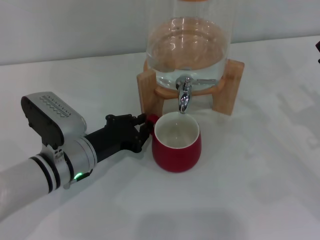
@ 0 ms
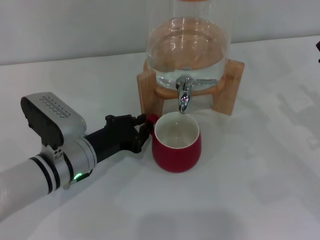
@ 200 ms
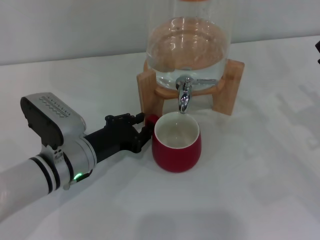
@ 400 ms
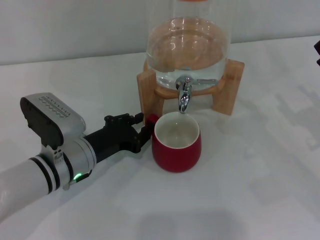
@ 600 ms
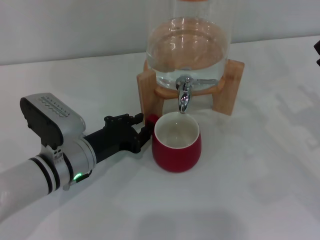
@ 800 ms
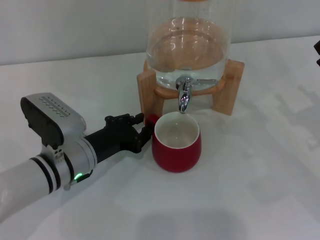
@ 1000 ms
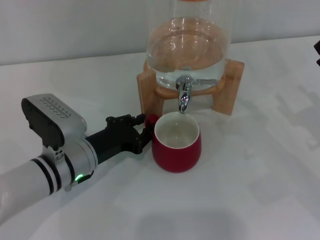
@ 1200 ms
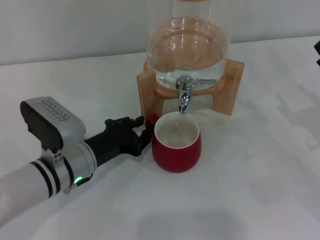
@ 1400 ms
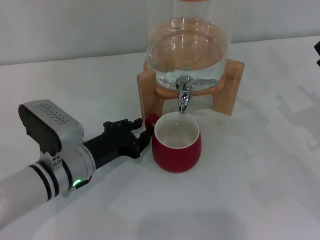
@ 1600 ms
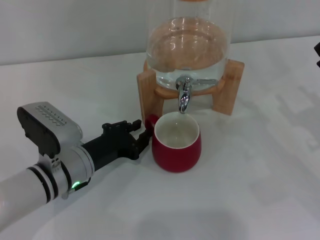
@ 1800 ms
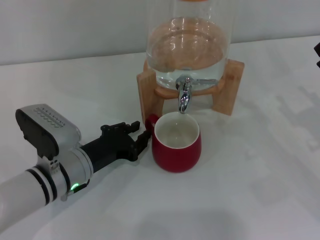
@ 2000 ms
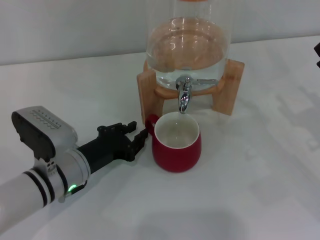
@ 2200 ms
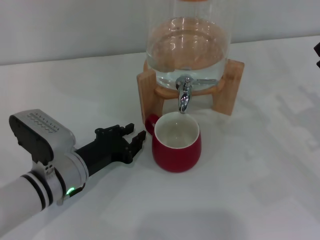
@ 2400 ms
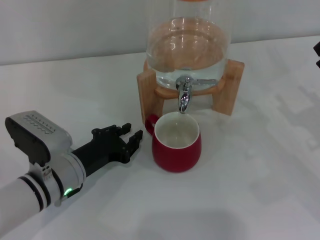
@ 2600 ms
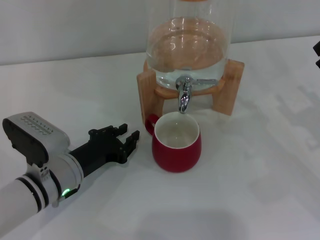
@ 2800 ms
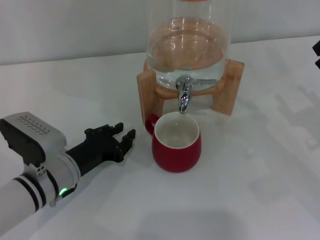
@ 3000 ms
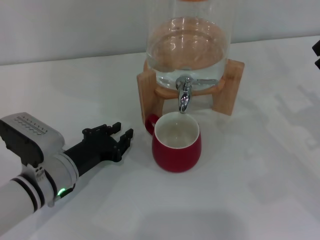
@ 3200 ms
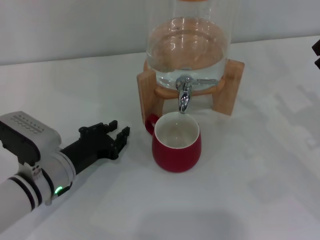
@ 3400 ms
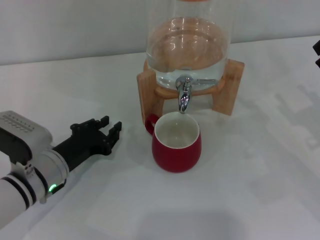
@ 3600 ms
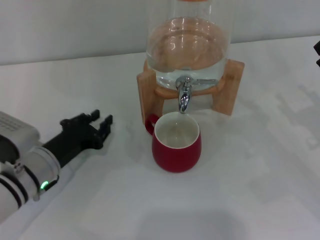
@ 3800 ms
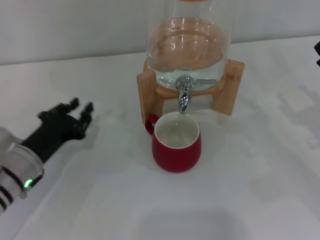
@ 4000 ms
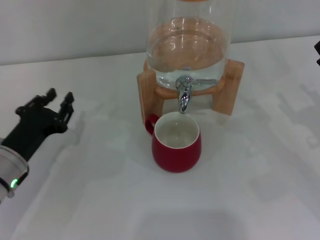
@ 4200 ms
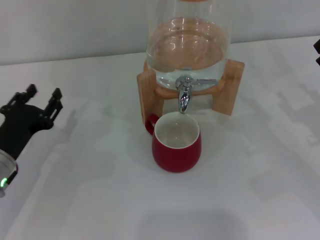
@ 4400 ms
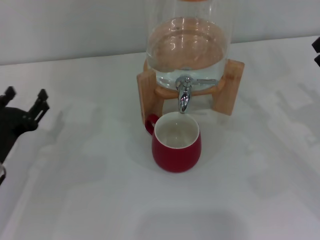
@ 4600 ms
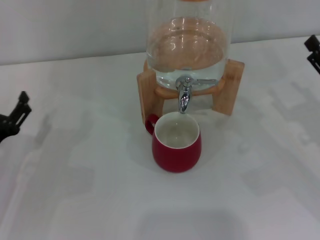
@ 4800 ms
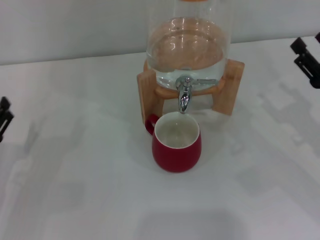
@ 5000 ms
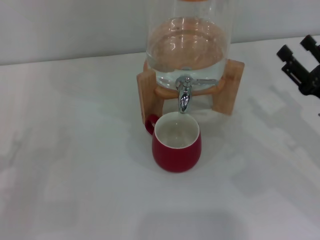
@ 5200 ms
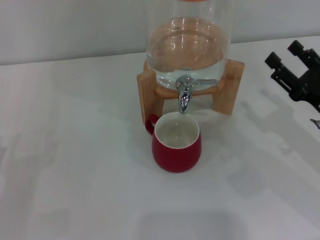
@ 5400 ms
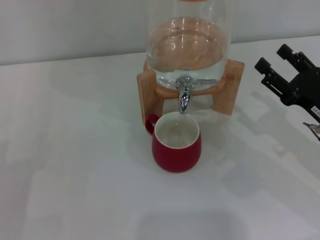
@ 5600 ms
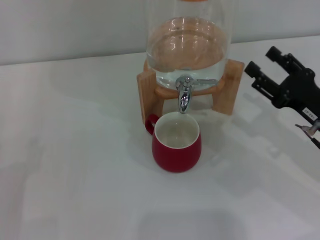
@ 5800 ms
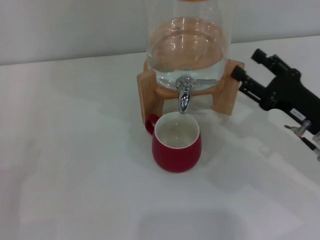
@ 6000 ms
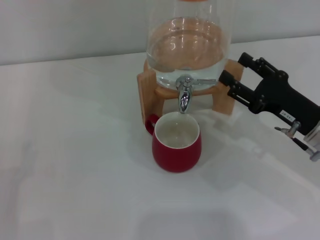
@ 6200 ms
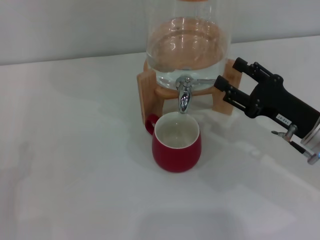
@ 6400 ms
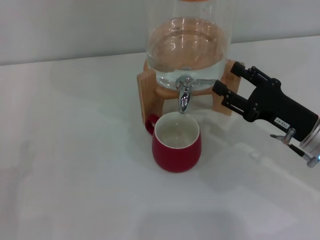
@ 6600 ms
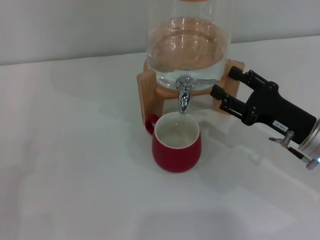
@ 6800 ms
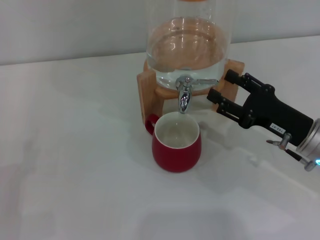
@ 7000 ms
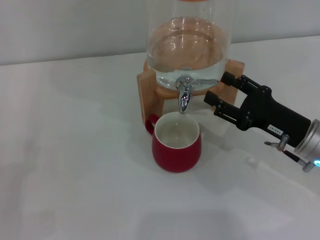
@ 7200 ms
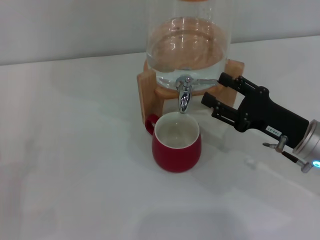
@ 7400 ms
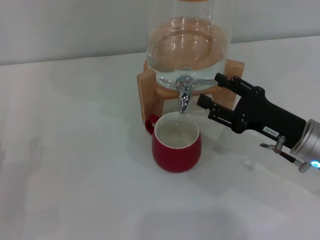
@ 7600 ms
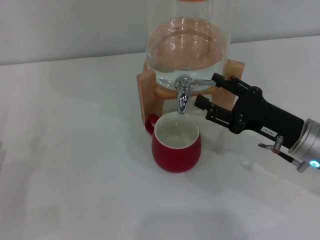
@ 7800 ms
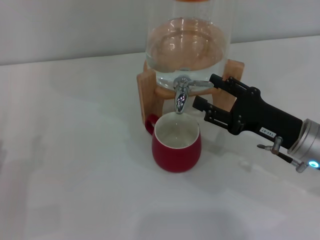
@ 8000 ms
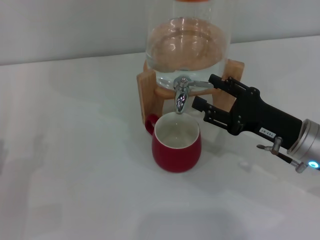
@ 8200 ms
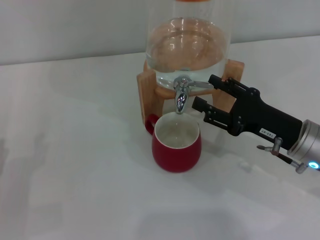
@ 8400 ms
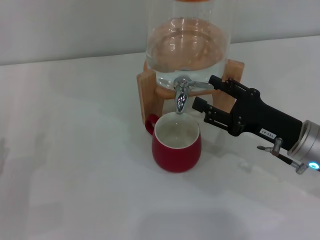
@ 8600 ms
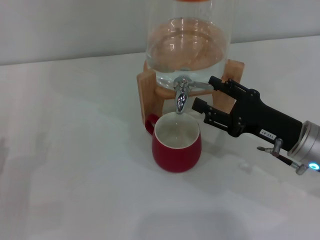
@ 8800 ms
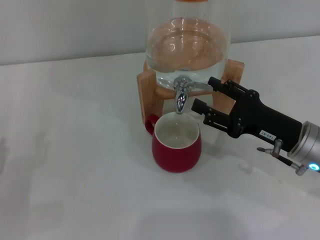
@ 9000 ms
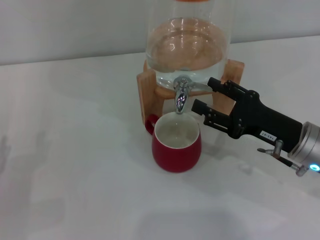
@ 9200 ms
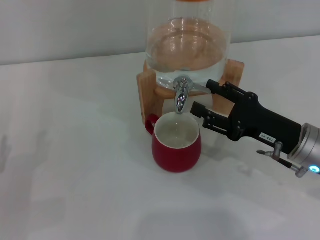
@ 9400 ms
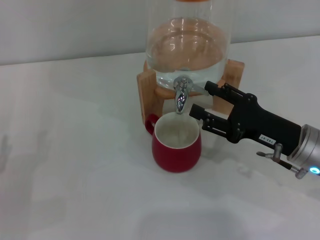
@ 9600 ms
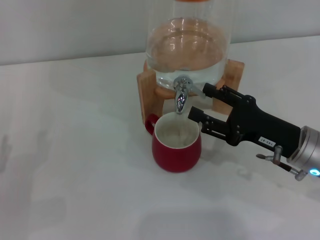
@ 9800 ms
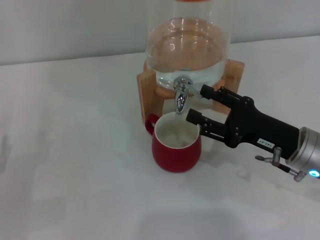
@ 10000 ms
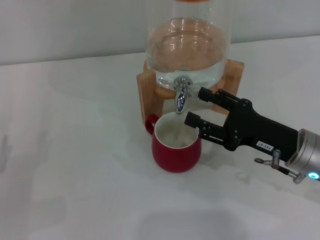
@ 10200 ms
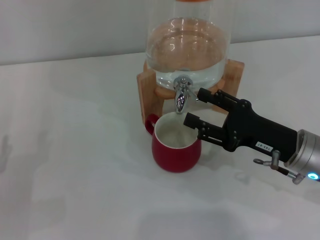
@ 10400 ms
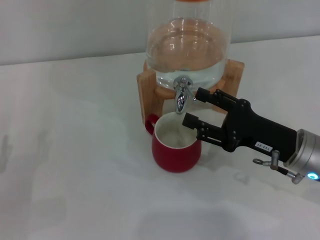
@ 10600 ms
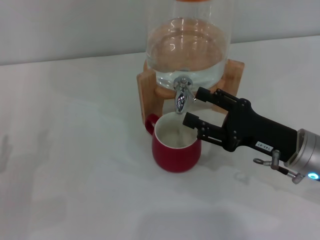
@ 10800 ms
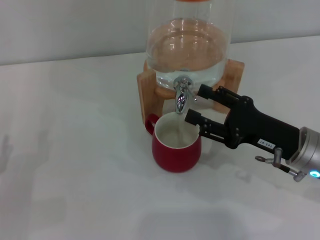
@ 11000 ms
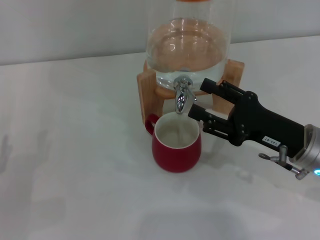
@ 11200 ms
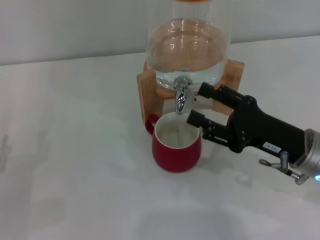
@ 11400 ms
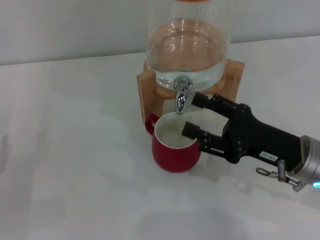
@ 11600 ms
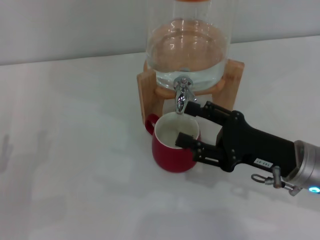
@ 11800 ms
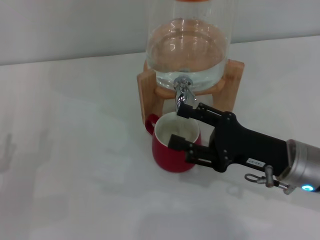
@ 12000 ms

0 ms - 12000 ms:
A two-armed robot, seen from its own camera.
Task of the whole recording: the left gripper pick up the red cup and place it horizontally under the faucet, the right gripper turn on the faucet to fill the cup, and then turn off the faucet.
Step, 0 ms - 3400 ms: Move the cup beneath the water dispenser nozzle with the left gripper.
0 ms - 1600 ms: Both grippers stay about where they are.
1600 ms - 3000 ms: The grippers make only small movements.
3000 ms - 4400 ms: The left gripper moves to the left, about 10 cm.
4400 ms - 6000 ms: The left gripper travels backward and to the left by approximately 10 cm, and opens its fingers, while the right gripper shifts some 5 cm to the left.
6000 ms - 7600 ms: There are only small adjustments of the grippers.
7600 ms - 9000 ms: Both grippers stay about where they are.
9000 ms - 12000 ms: The grippers stay close to where they were, moving slightly.

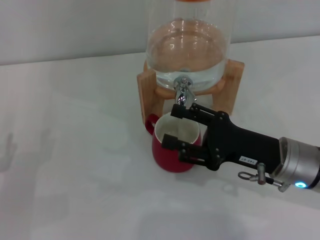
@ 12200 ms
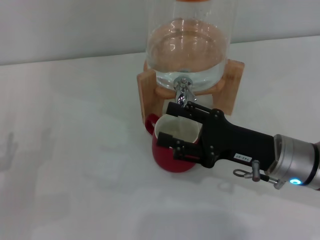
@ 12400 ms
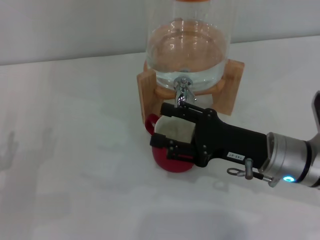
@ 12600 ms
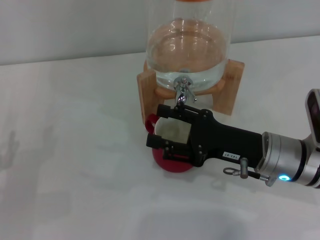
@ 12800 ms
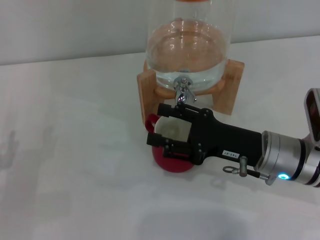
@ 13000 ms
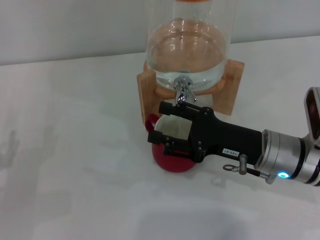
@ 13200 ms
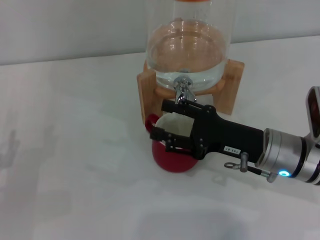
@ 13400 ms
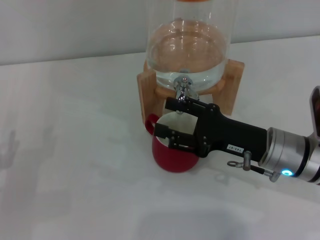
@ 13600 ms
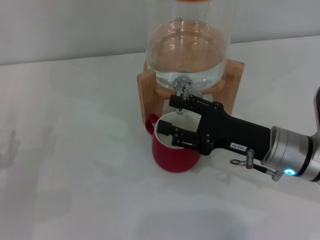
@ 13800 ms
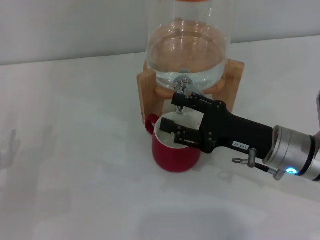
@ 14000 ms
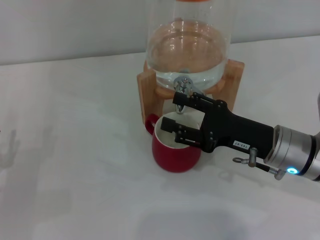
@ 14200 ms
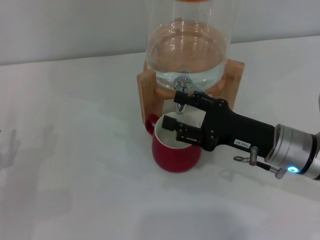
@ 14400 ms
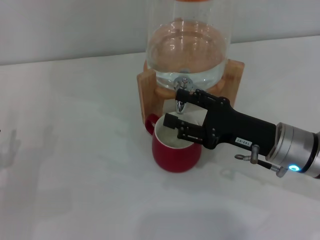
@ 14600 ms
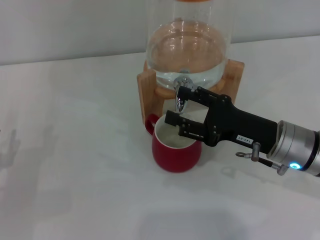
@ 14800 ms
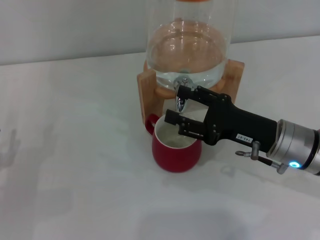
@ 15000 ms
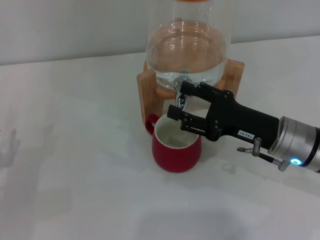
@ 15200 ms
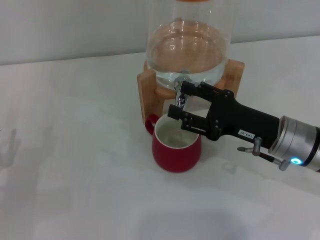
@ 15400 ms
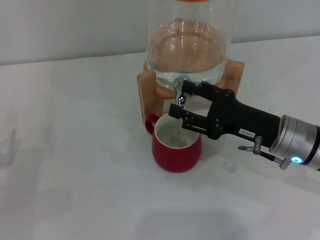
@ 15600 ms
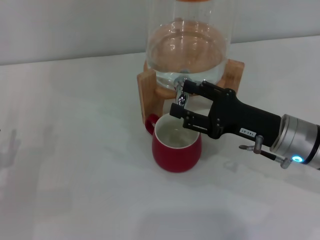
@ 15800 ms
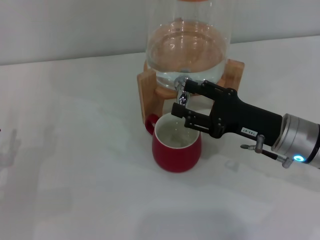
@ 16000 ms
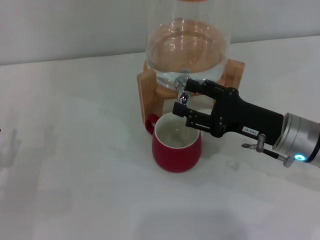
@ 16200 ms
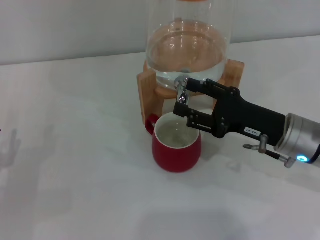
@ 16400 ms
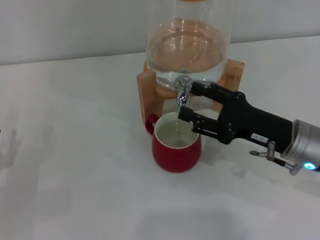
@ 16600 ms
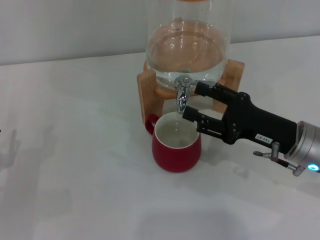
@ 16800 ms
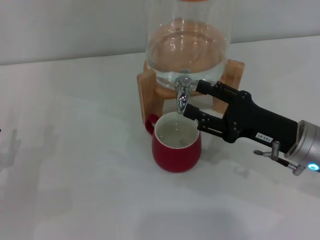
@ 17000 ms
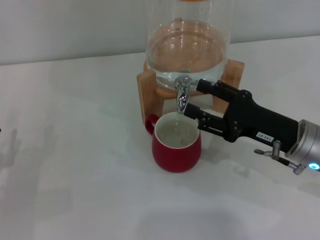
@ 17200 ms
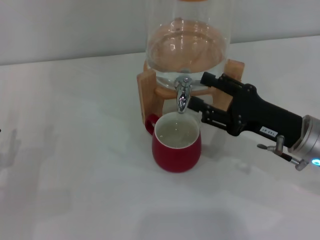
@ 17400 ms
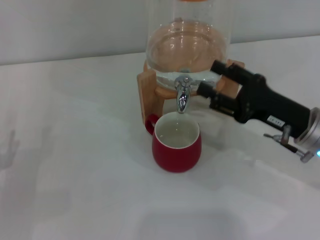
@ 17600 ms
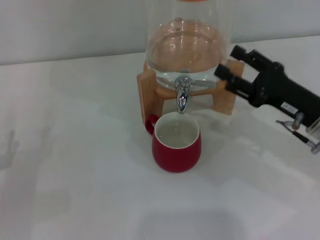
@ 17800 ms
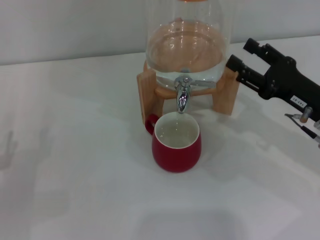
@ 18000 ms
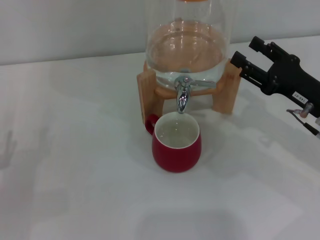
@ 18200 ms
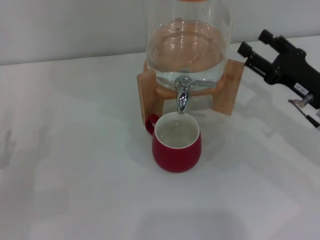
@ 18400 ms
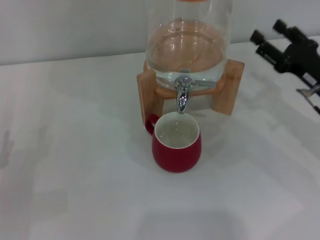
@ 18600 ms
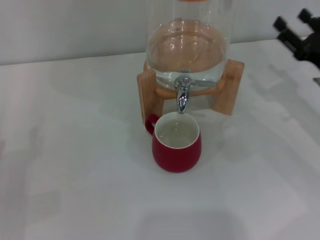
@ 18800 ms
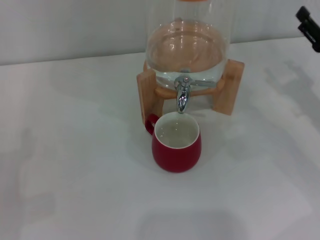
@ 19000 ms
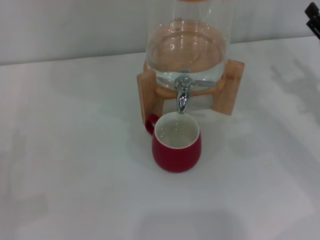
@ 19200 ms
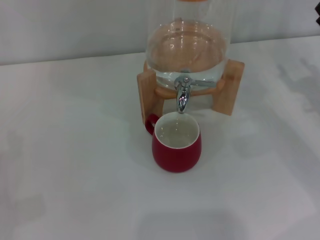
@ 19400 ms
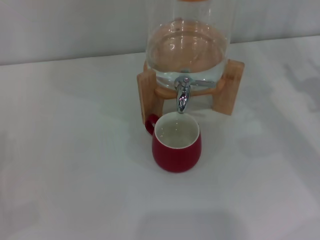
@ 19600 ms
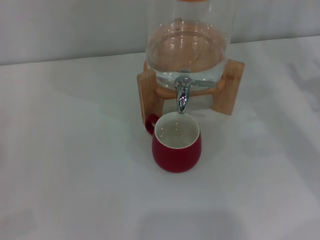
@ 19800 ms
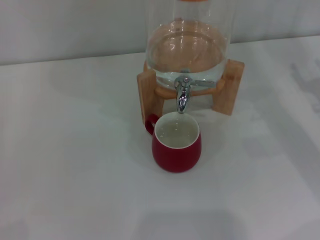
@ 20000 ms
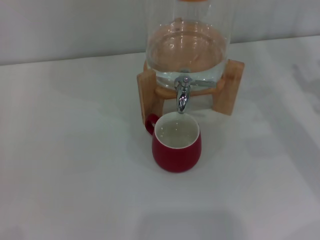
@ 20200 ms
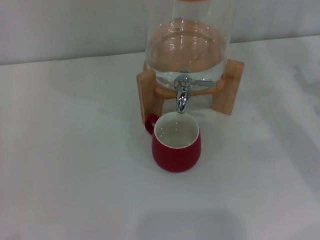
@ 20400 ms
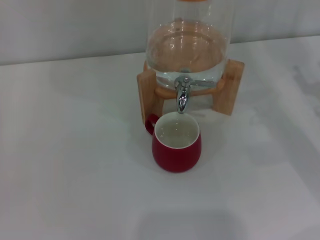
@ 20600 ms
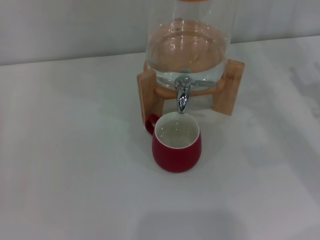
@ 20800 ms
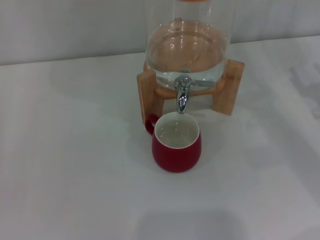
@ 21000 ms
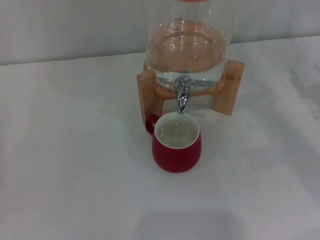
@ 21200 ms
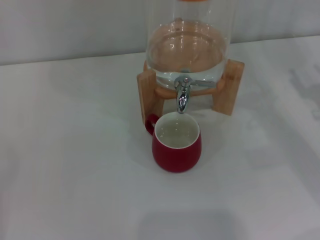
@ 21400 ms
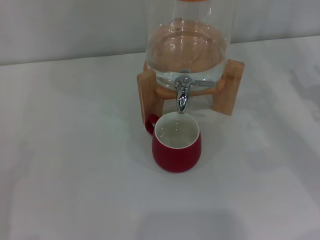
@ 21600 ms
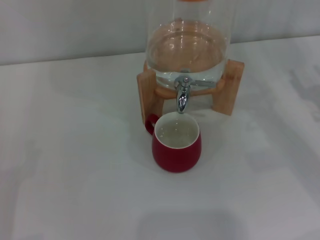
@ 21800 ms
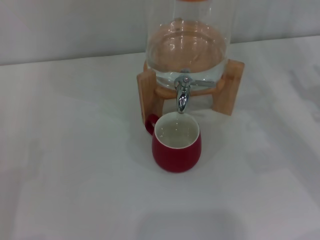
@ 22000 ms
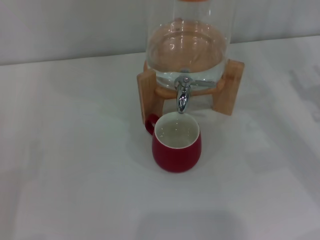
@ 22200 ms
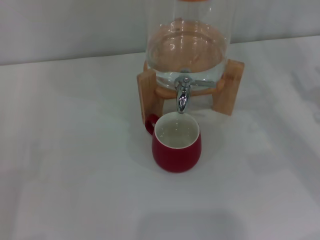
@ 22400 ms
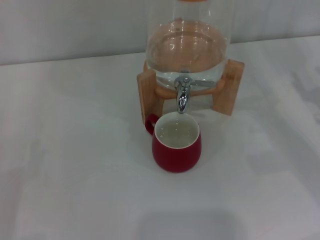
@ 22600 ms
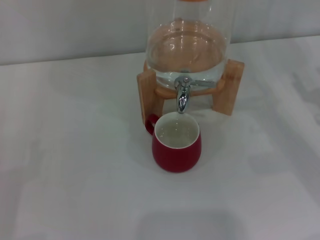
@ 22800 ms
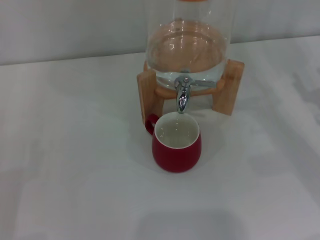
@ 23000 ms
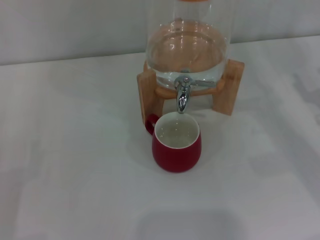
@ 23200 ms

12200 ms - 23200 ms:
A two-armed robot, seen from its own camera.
Task of the whole recording: the left gripper pick up the red cup and place it horizontally under the faucet, the right gripper turn on the faucet to fill the cup, and then turn off the faucet.
Step, 13000 ms - 18000 ms: Close the dispenser valve with the right gripper.
12200 ms - 17000 ms: The grippers move only a little.
17000 ms - 18400 ms: The right gripper is displaced to the right by approximately 5 cm.
18400 ms - 20000 ms: The right gripper travels to the right by about 10 cm.
